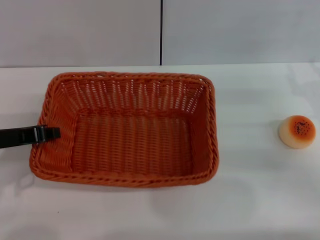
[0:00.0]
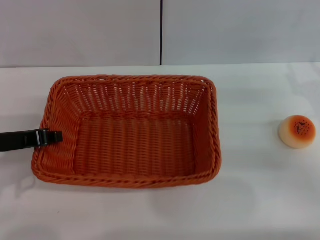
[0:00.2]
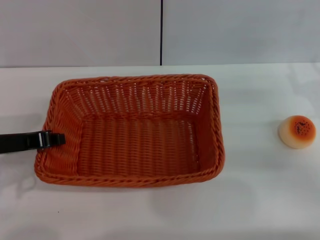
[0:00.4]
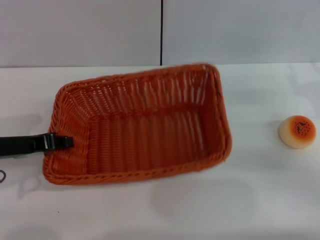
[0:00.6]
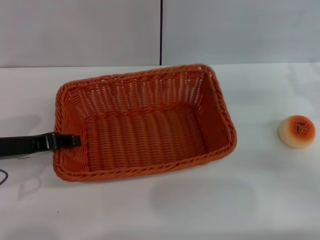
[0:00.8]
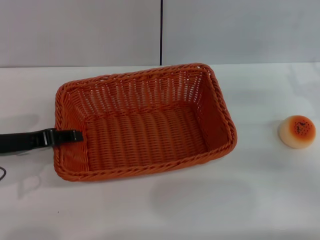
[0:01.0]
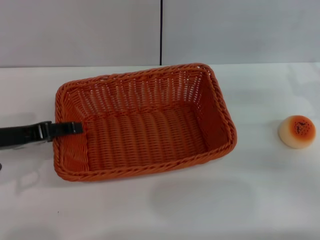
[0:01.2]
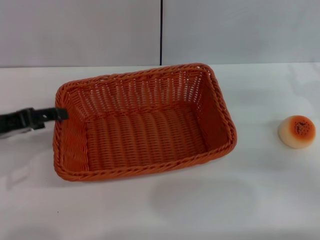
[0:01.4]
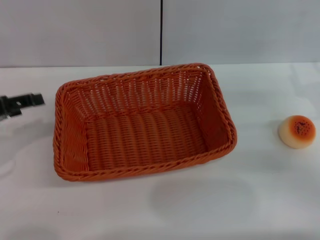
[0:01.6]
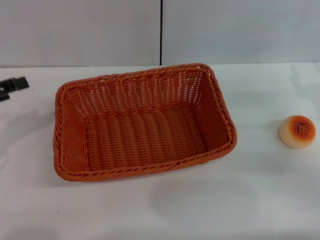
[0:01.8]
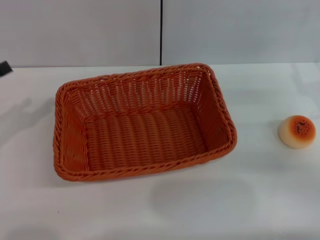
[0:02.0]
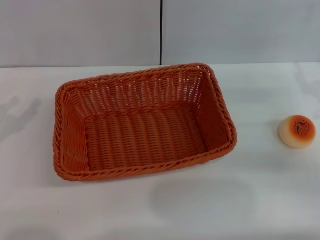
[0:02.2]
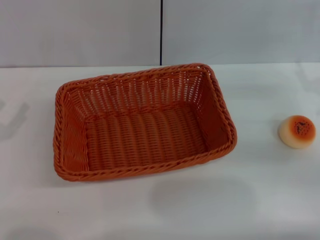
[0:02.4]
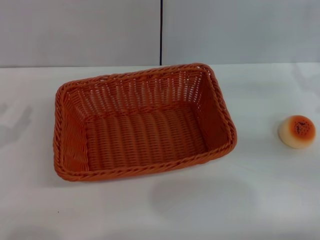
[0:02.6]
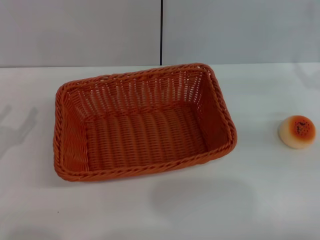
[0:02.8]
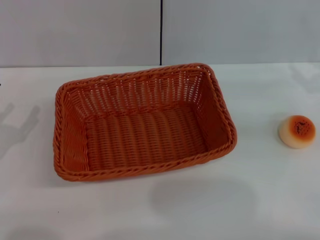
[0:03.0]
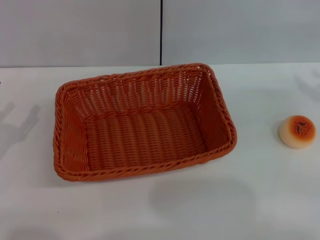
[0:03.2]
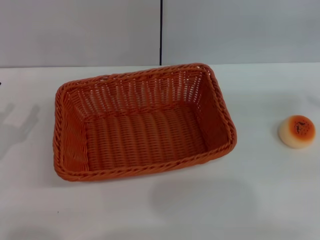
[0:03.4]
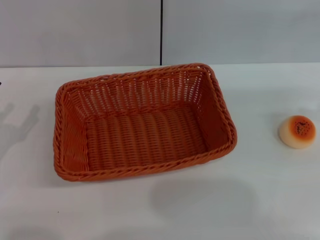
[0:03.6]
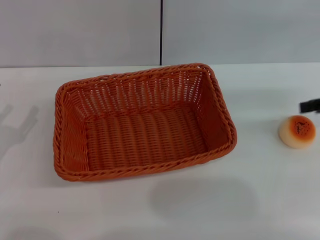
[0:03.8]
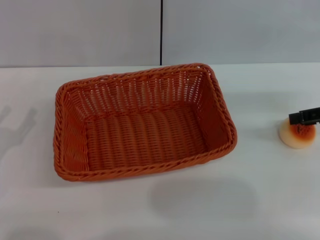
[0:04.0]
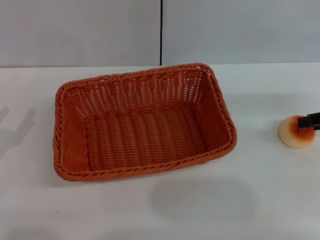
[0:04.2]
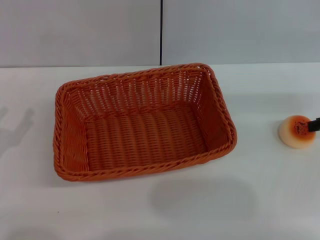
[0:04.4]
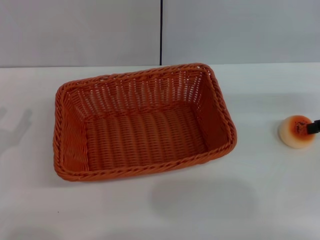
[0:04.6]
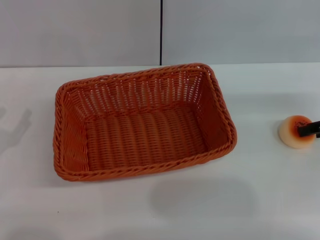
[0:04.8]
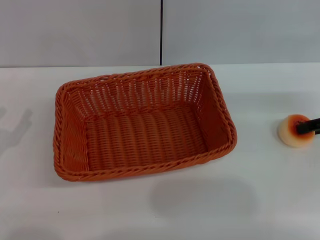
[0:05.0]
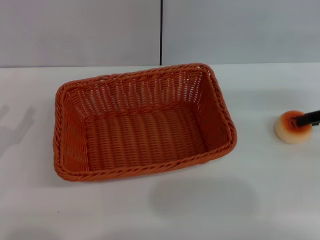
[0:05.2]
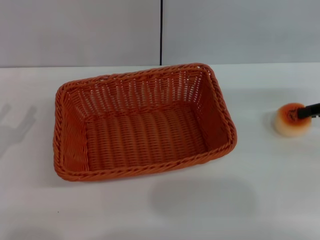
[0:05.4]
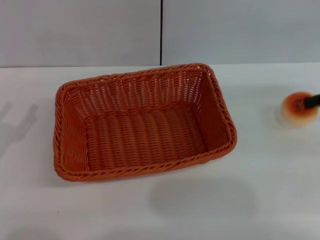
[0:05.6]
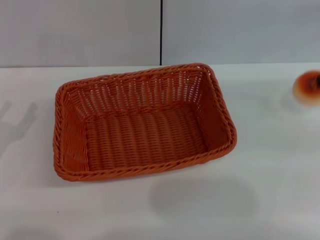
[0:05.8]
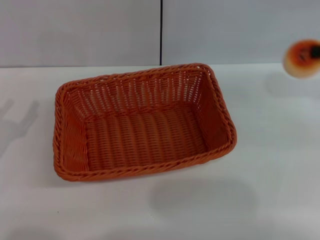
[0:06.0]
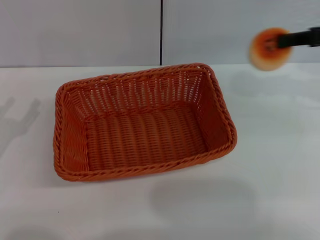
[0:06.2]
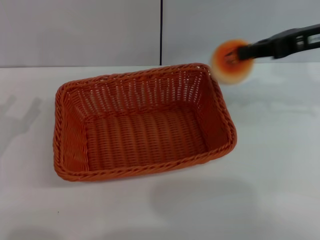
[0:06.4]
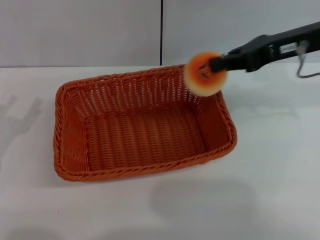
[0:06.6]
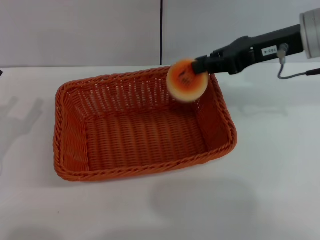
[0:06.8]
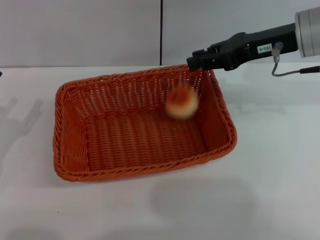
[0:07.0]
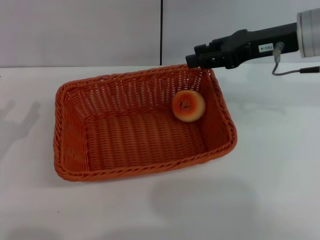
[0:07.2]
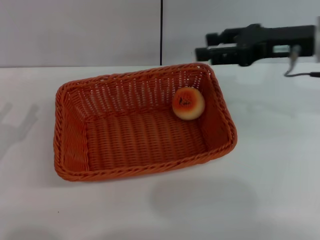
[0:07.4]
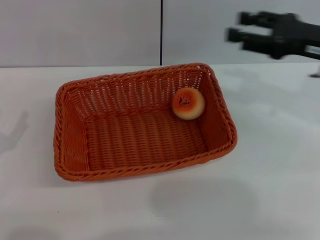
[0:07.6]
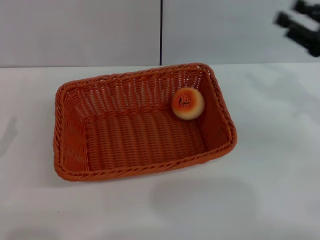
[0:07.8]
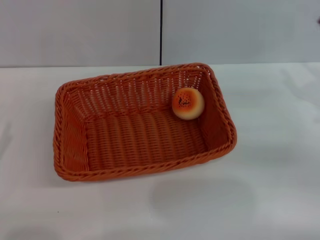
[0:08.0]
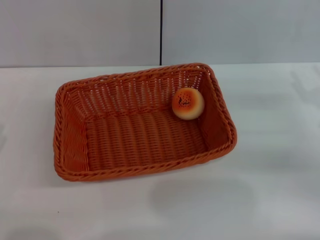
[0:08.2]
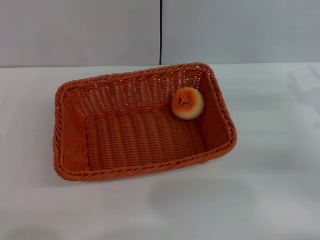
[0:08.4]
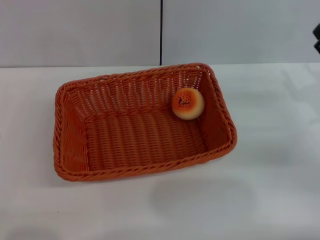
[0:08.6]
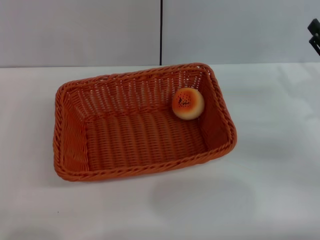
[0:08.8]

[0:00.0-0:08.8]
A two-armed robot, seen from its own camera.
Step, 0:01.8 to 0:05.6: Pick up the egg yolk pastry with the right gripper.
Step, 0:05.8 to 0:07.2: Place the egg yolk pastry into the basket with the right gripper.
0:00.0 to 0:01.4: The left gripper opens.
0:01.4 to 0:03.0: The left gripper goes approximately 10 cm downward and to the left.
0:04.4 to 0:05.8: The right gripper closes.
0:05.8 to 0:07.4: The right gripper shifts approximately 15 cm to the left, and opens up.
0:07.4 to 0:08.8: The right gripper travels downward, to the right and backward by some 15 cm. Meanwhile the left gripper moves roughly 5 cm.
